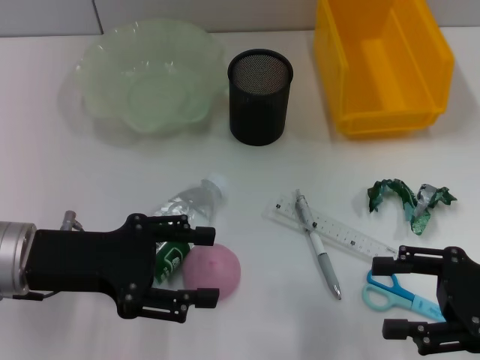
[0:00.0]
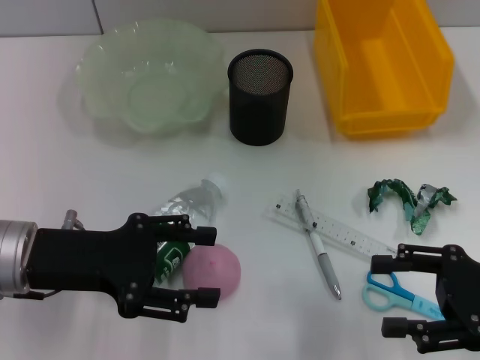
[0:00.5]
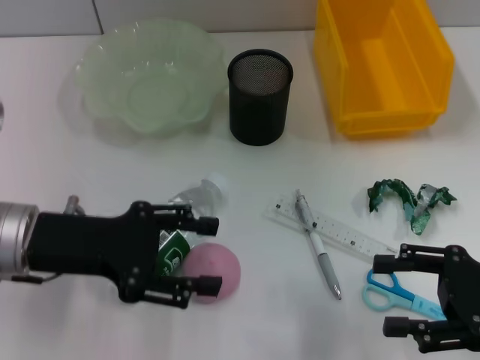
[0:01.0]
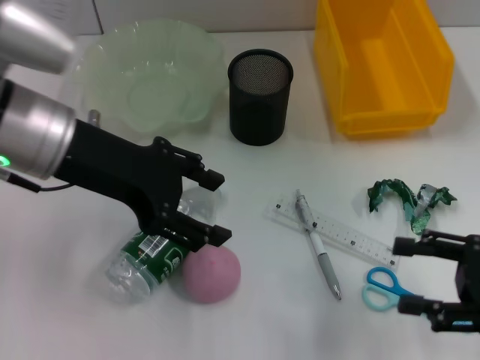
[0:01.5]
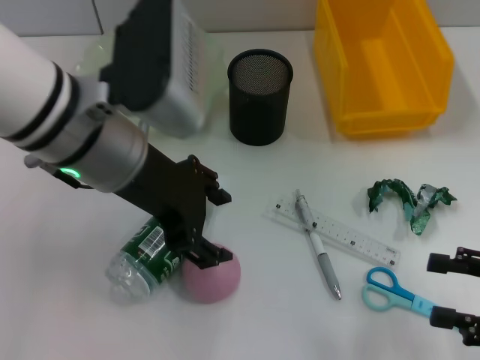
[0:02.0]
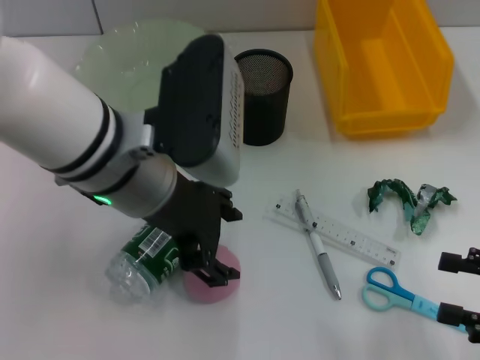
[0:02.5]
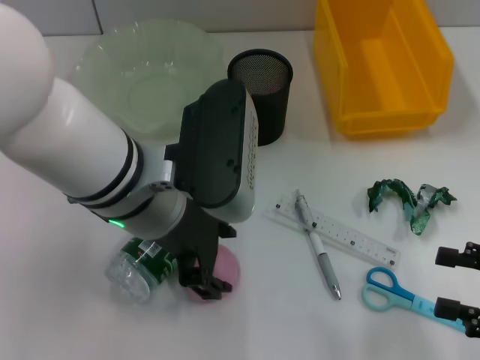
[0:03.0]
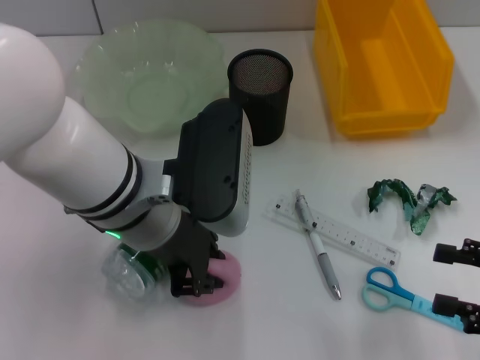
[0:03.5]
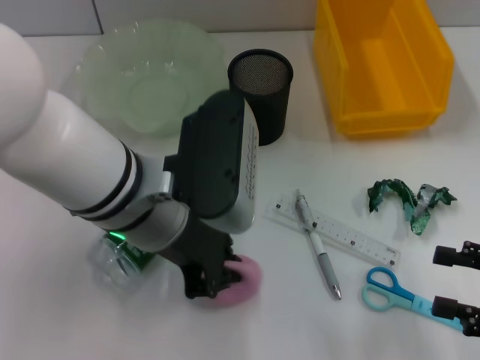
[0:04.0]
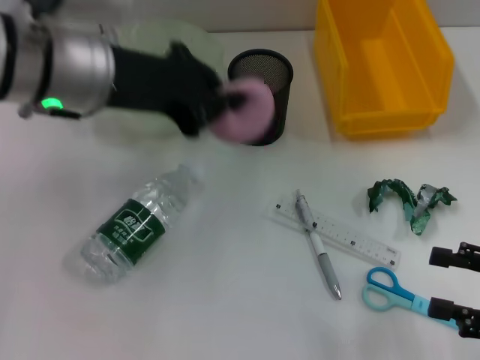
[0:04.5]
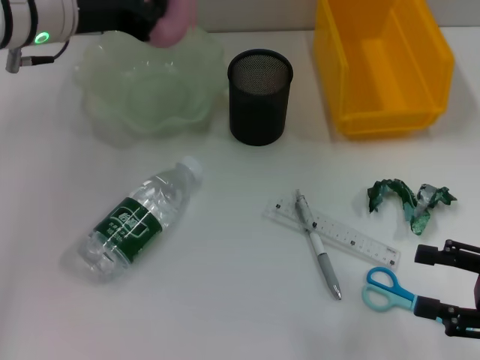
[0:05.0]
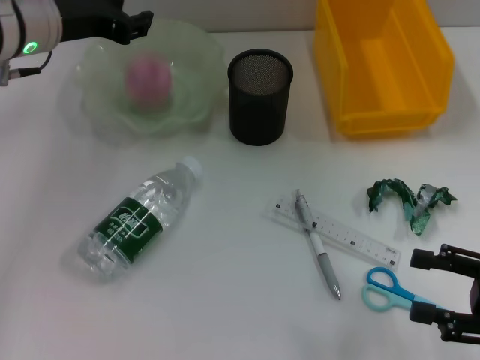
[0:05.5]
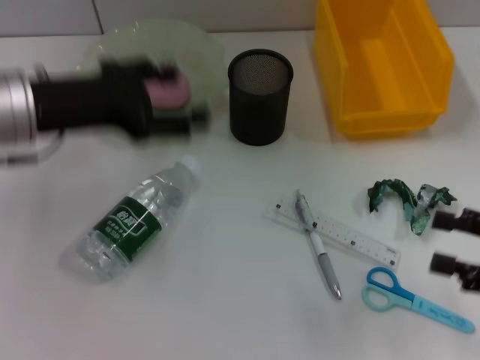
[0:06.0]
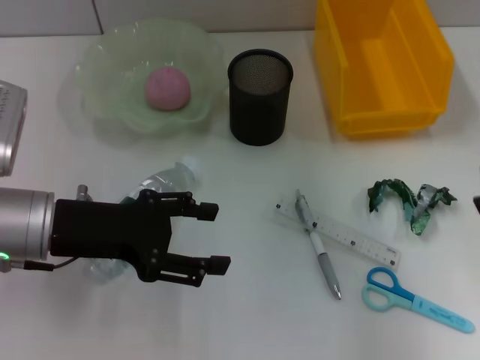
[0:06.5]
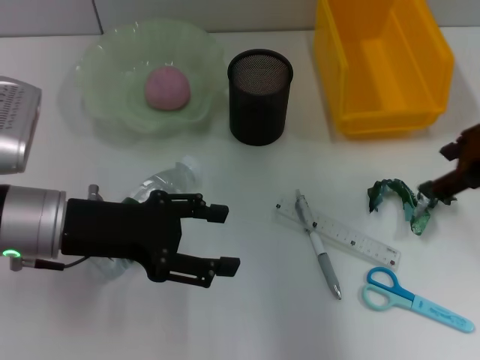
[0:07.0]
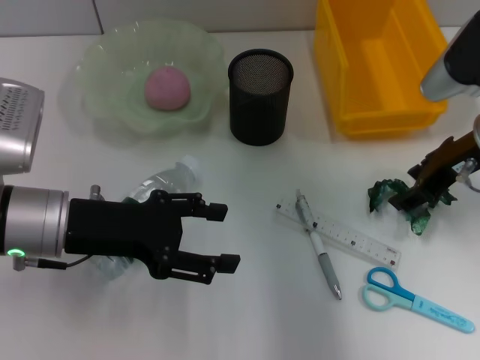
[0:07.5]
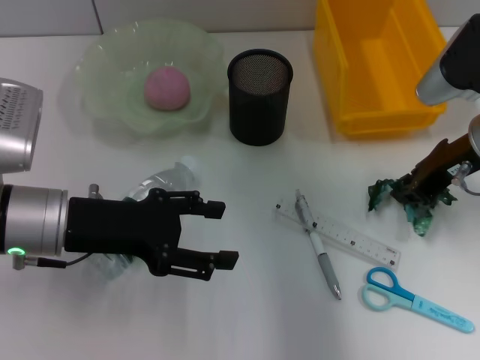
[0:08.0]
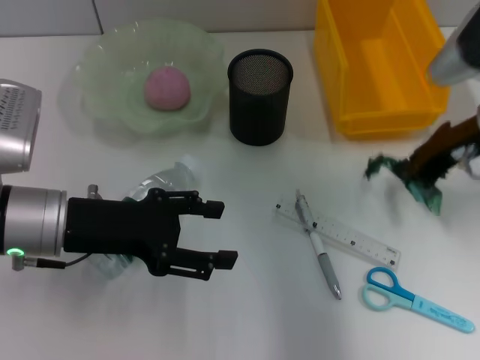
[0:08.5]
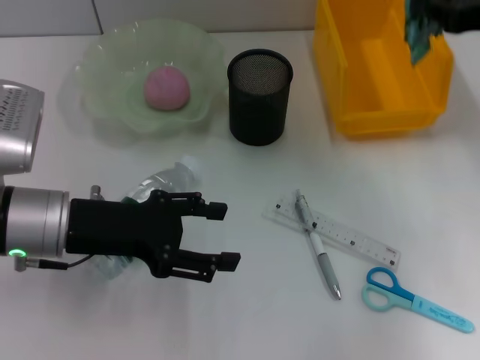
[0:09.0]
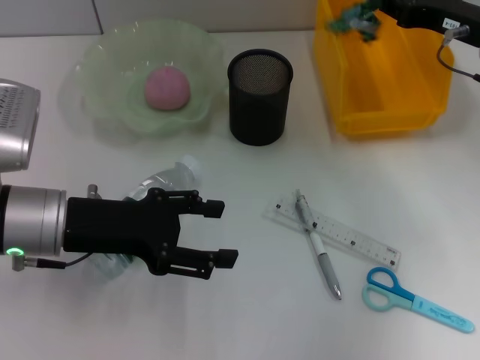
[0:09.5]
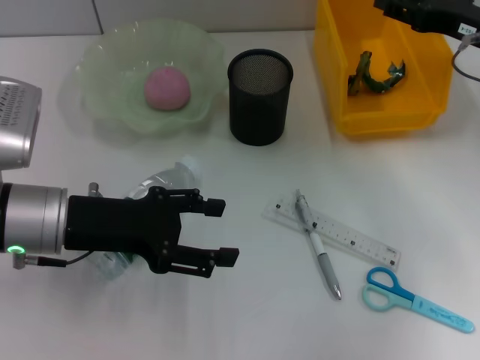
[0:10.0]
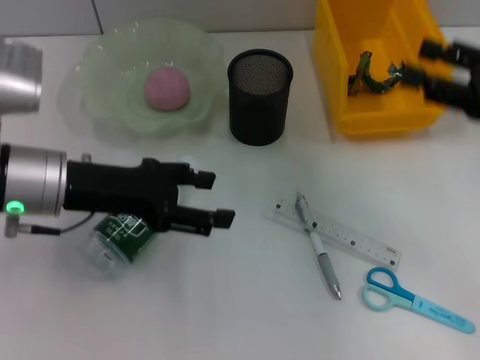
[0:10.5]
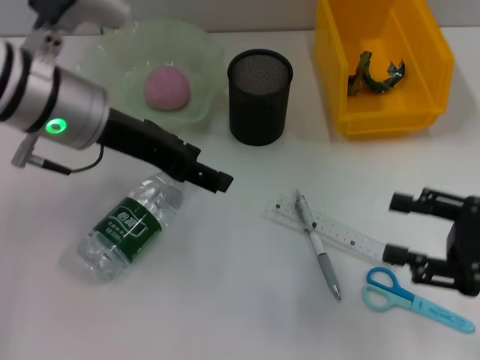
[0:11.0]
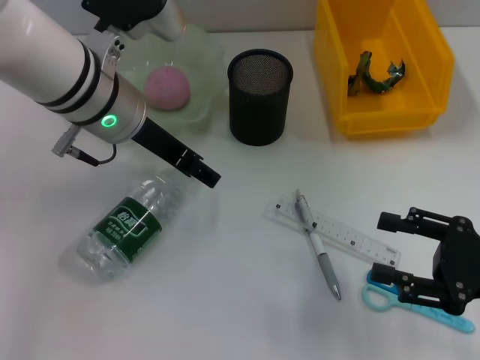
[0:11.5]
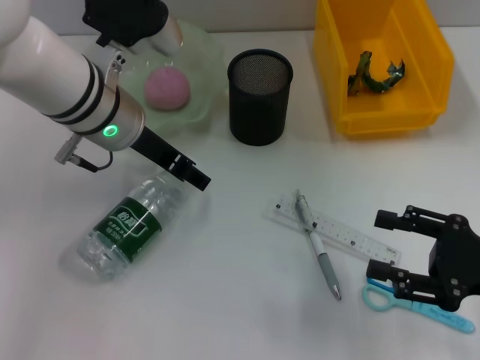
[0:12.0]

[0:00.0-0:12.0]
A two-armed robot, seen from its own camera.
Step, 0:00.0 to 0:03.5: Grab the peach with the left hand.
Step, 0:04.0 to 0:05.5: Place the peach into the fruit bowl with the left hand.
Step, 0:06.0 to 0:08.0: Grab the plastic with the right hand.
Step, 0:08.5 to 0:09.5: Place the plastic into the trash can with the right hand.
0:00.0 to 0:02.0: The left gripper is displaced to the right, upward and forward by roughly 15 cm. The right gripper shifts by roughly 5 cm.
0:02.0 to 0:04.0: The left gripper shifts by about 5 cm, and closes.
0:04.0 to 0:06.0: The left gripper goes some 15 cm to the left, reaches about 15 cm forward, then returns, and opens up.
0:06.0 to 0:08.0: The left gripper goes approximately 5 cm downward, while the right gripper goes approximately 20 cm forward and to the left, and closes up.
0:08.0 to 0:10.0: The right gripper shifts by about 5 cm, and closes, then reopens.
0:10.0 to 0:12.0: The right gripper goes roughly 20 cm backward, while the left gripper is displaced forward and to the right by some 10 cm.

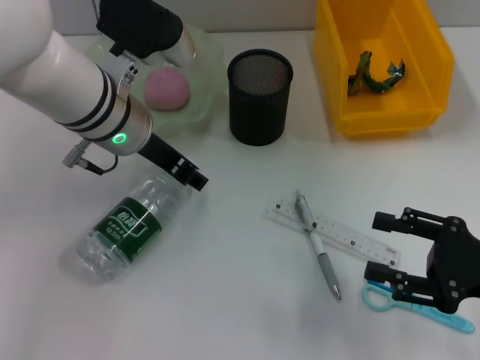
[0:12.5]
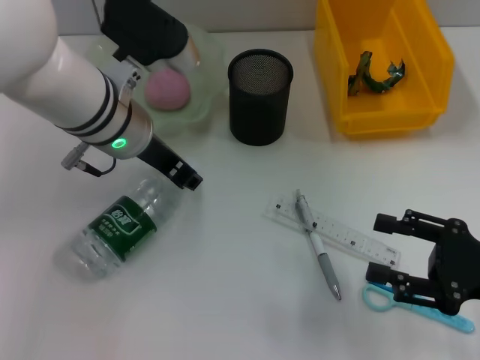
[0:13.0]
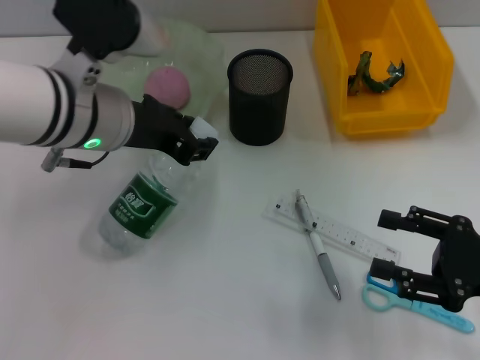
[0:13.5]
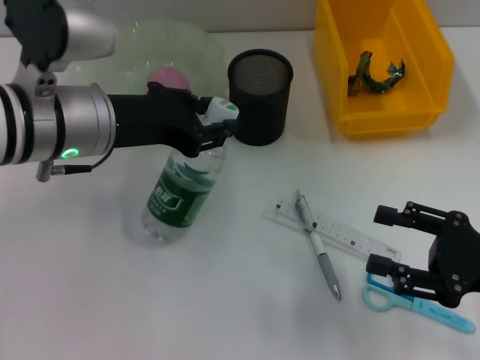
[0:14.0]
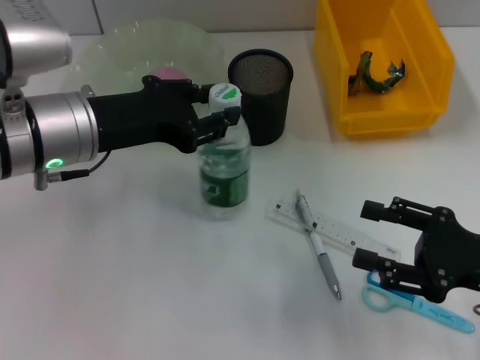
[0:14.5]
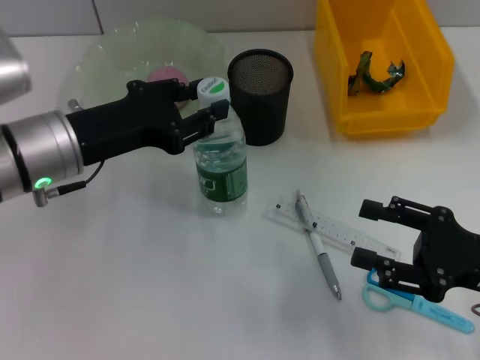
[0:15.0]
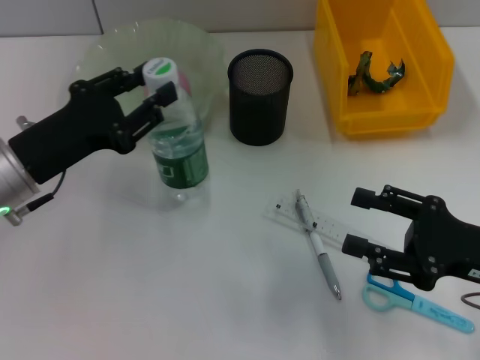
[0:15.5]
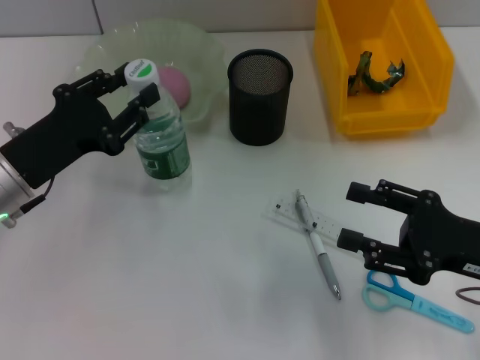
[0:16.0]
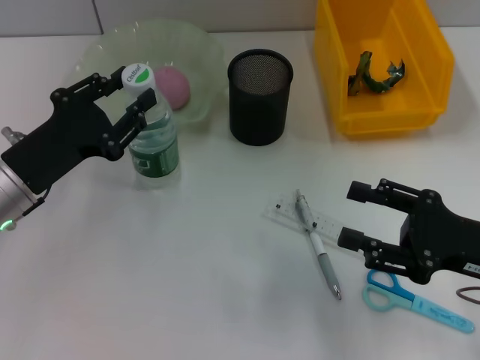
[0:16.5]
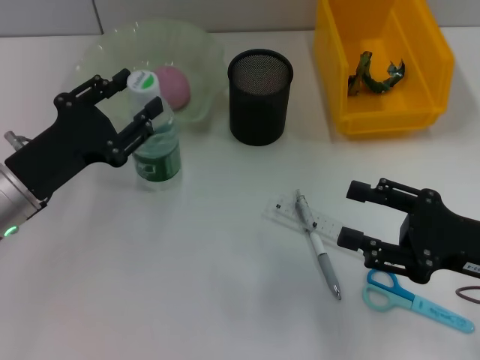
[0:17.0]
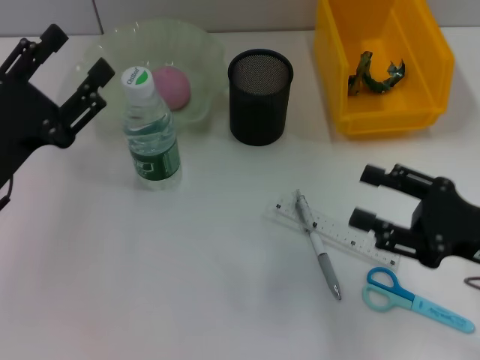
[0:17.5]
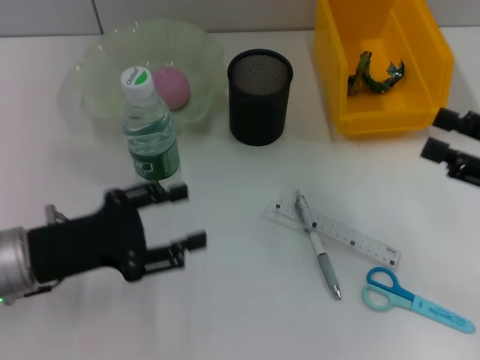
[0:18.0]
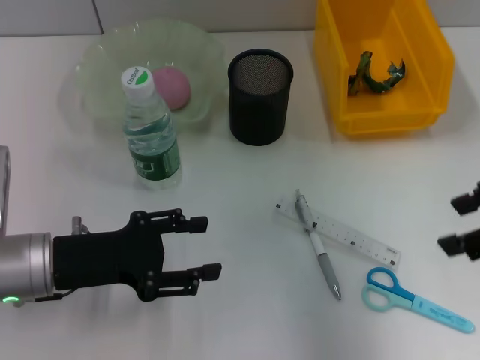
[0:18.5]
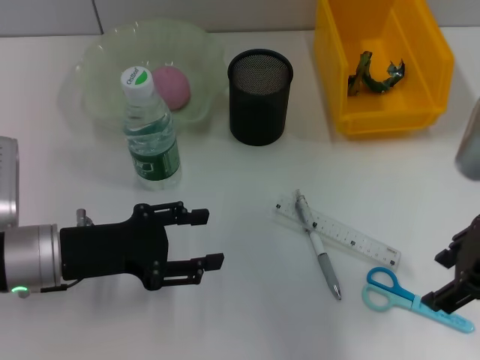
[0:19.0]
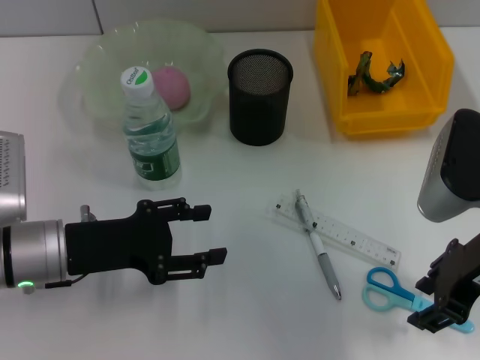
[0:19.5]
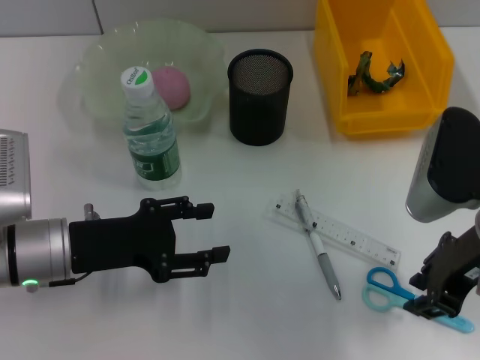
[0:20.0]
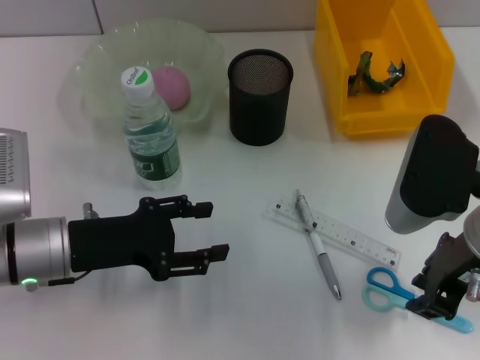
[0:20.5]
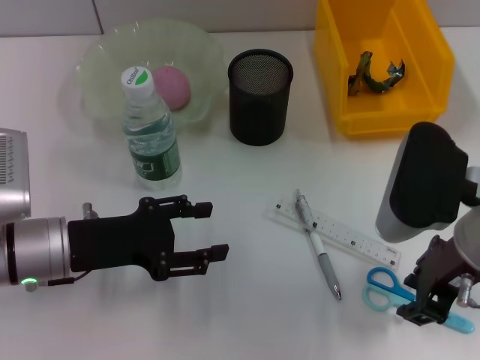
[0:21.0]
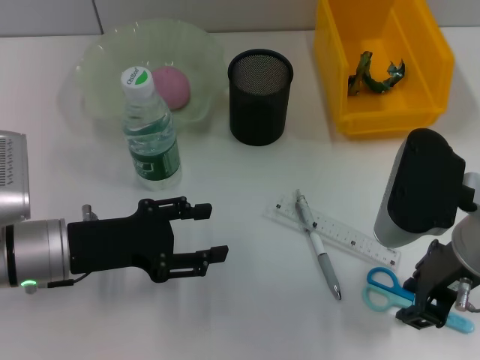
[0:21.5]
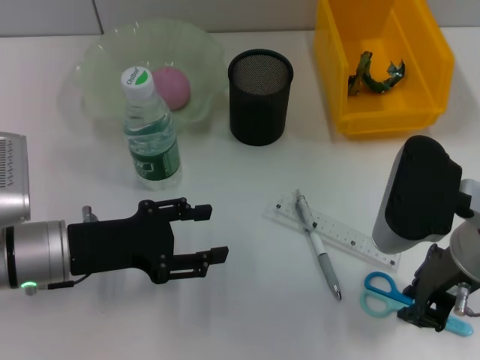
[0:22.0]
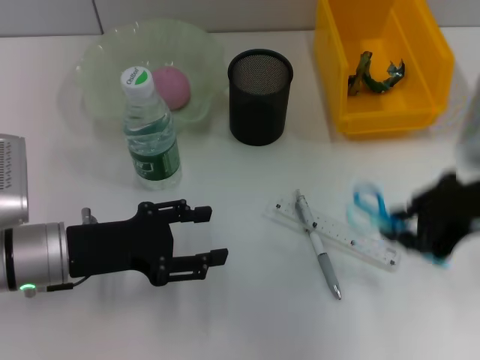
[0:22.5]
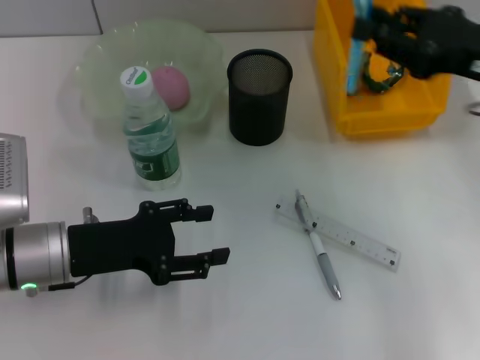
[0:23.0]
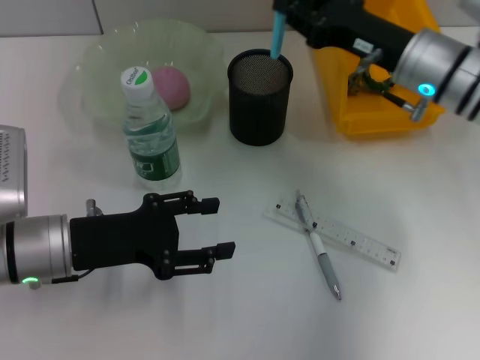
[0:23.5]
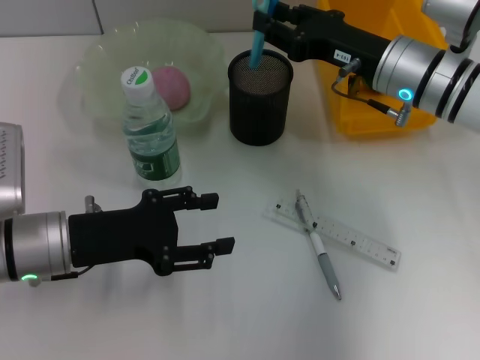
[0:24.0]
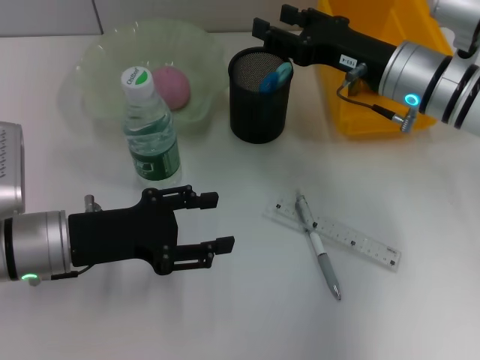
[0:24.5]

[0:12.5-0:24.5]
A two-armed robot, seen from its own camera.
Step, 0:13.0 to 0:17.0: Place the water bottle on the table with the left hand.
Step, 0:17.5 to 0:21.5: Grab the blue scissors with the right hand.
Step, 0:22.0 to 0:24.0: Place the blue scissors into the pen holder with the right hand.
0:12.5 to 0:14.5: The left gripper moves backward and to the left, about 10 cm, and closes up.
0:14.5 to 0:16.5: The left gripper travels downward and to the left by roughly 10 cm.
0:16.5 to 0:18.5: The right gripper is displaced upward by some 15 cm.
0:18.5 to 0:20.5: The right gripper is displaced to the left and downward by some 10 cm, and closes its fingers.
0:20.5 to 0:22.5: The right gripper moves roughly 5 cm.
0:22.5 to 0:24.5: The right gripper moves forward and downward, approximately 15 cm, and opens.

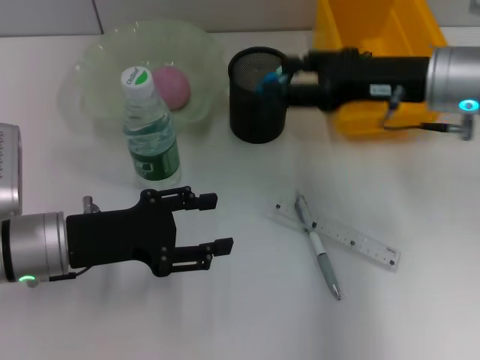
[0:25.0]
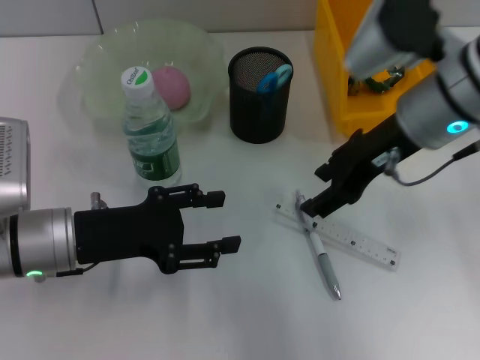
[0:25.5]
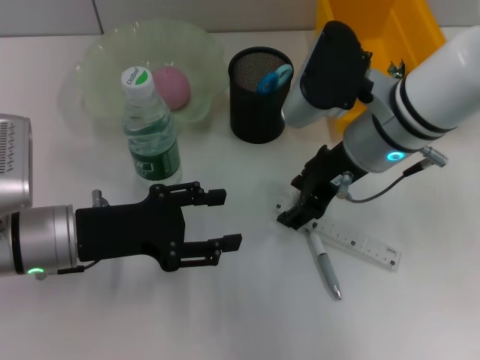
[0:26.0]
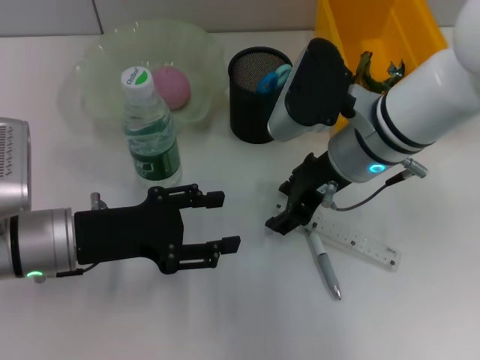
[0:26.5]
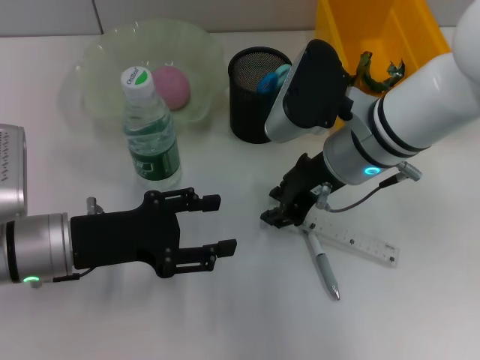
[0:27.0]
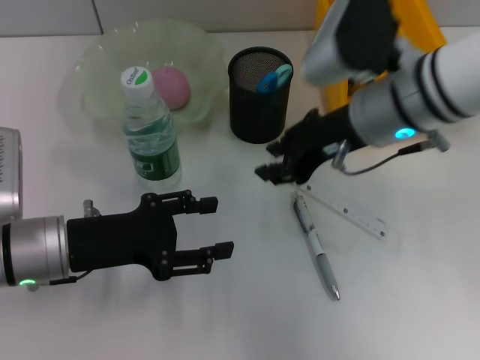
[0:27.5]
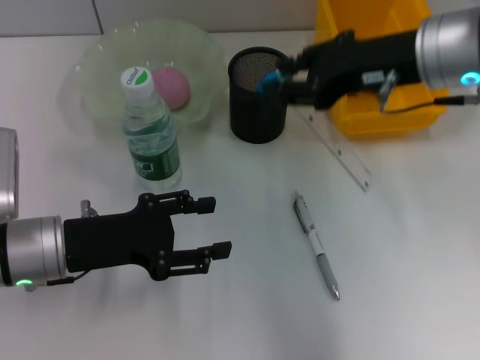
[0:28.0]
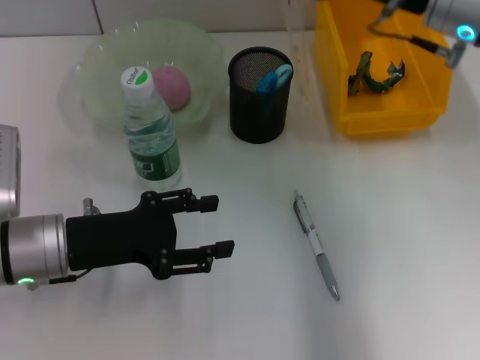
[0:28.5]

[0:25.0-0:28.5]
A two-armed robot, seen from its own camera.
Step, 0:25.0 to 0:26.5: Grab the ruler with the right hand.
0:25.0 to 0:27.0: The right gripper heads to the left, covering some 10 cm.
0:27.0 to 0:28.5: The right gripper heads upward and to the right, covering approximately 10 cm.
